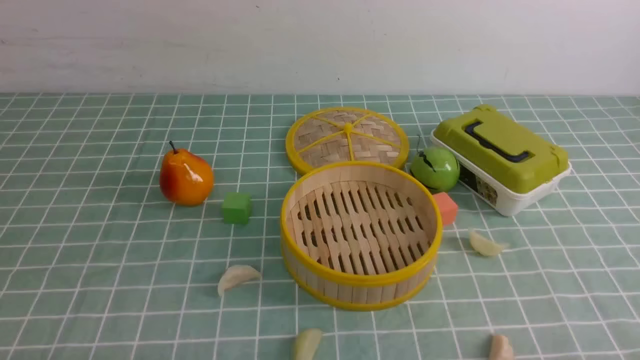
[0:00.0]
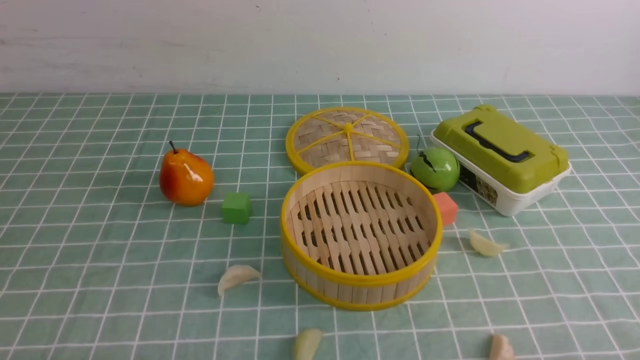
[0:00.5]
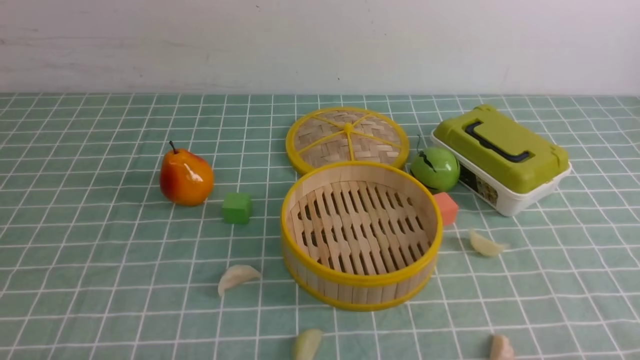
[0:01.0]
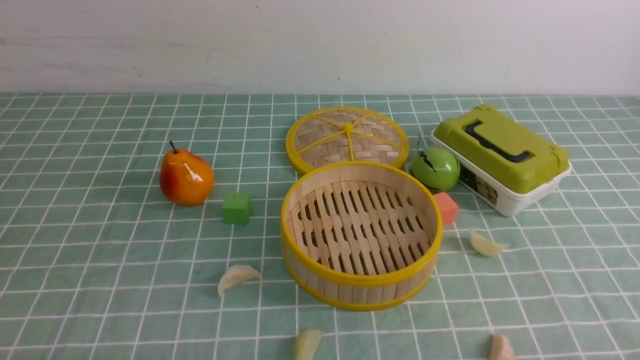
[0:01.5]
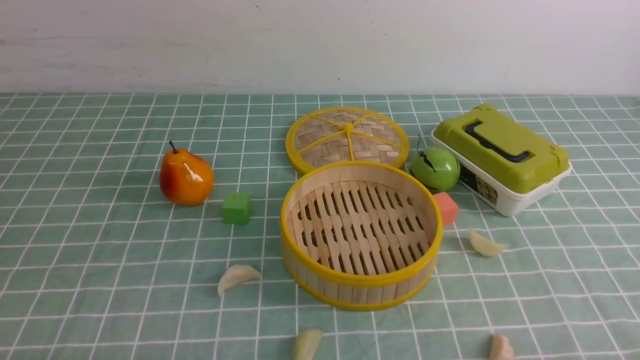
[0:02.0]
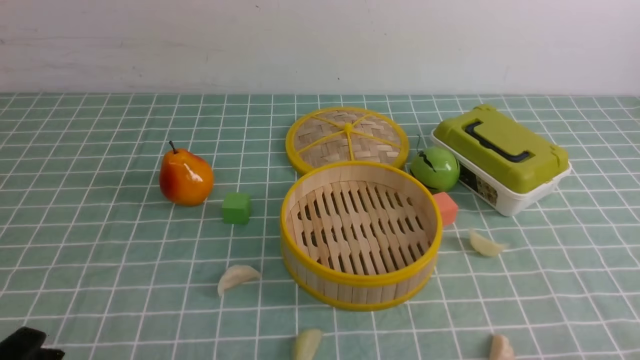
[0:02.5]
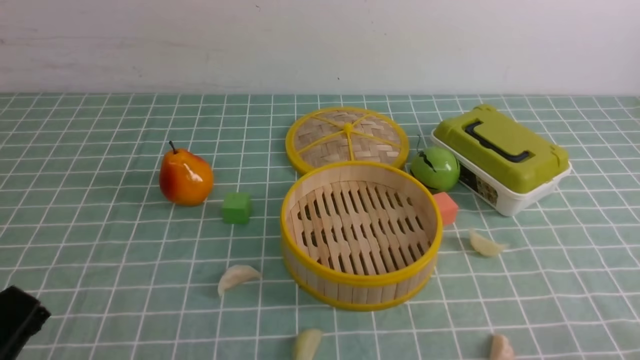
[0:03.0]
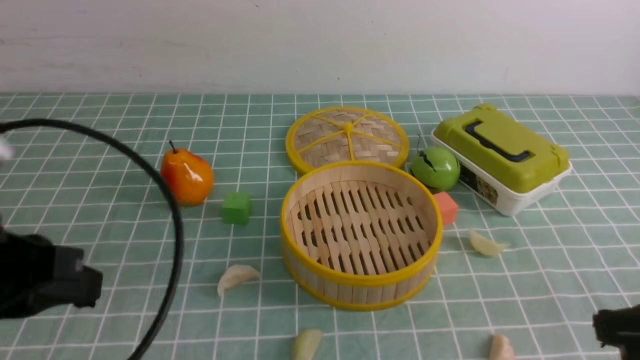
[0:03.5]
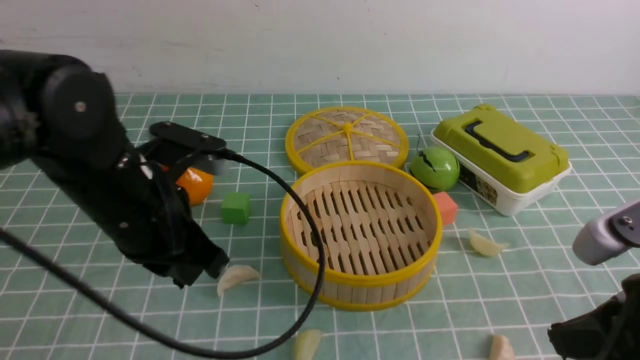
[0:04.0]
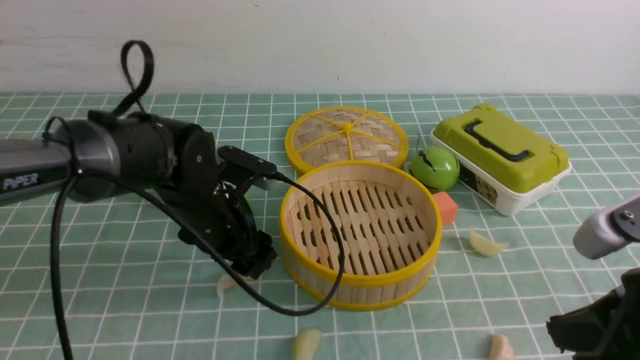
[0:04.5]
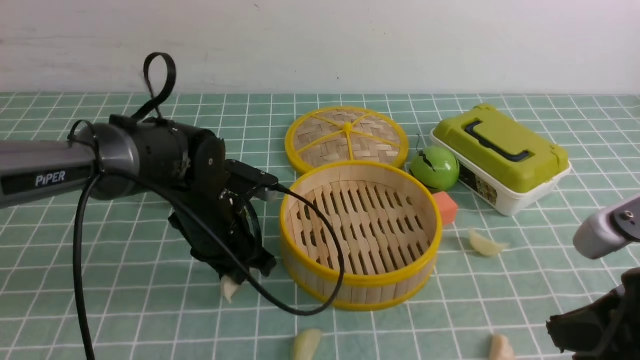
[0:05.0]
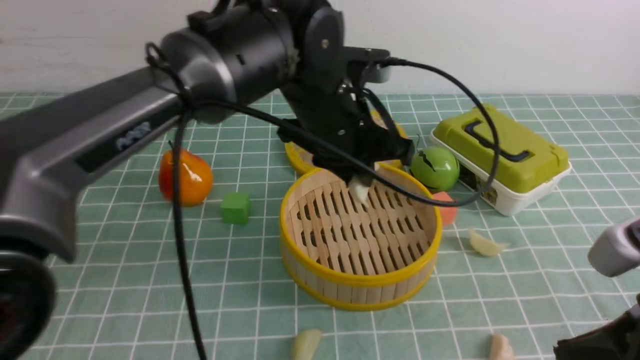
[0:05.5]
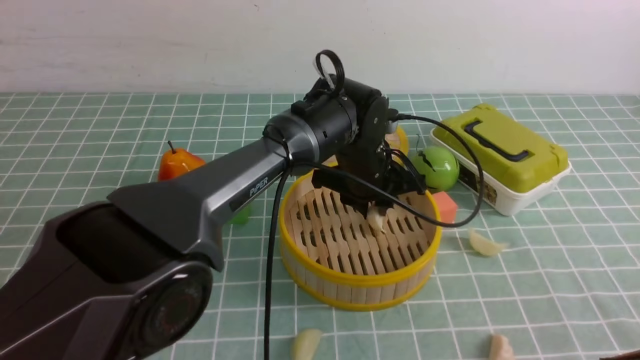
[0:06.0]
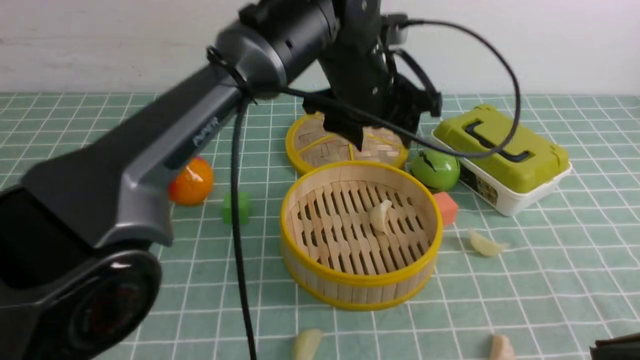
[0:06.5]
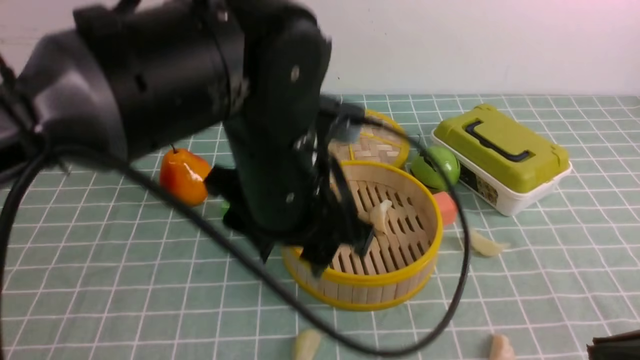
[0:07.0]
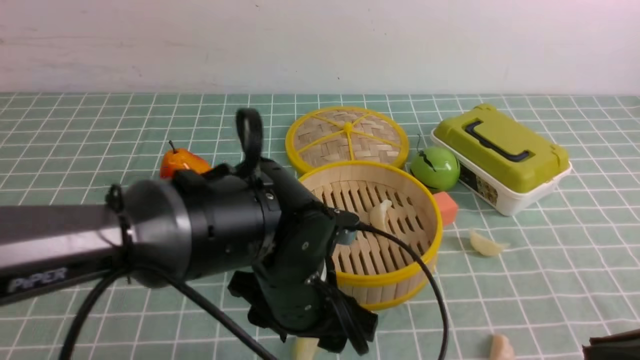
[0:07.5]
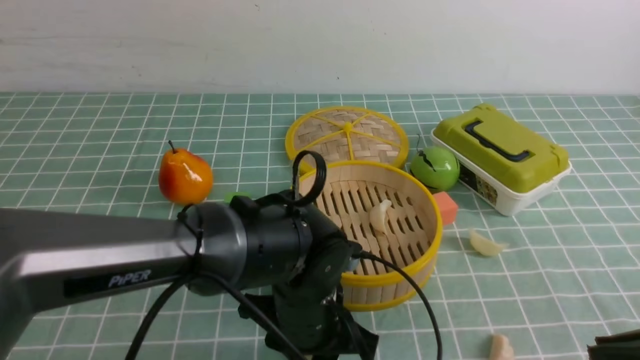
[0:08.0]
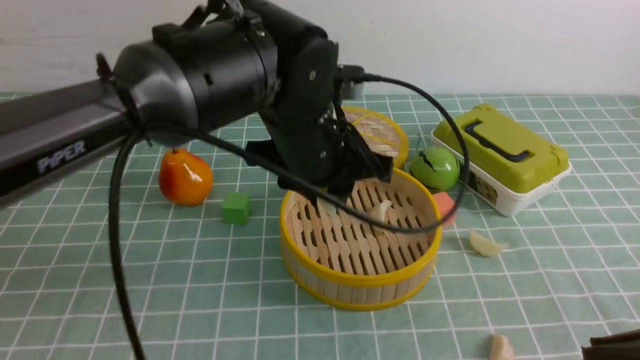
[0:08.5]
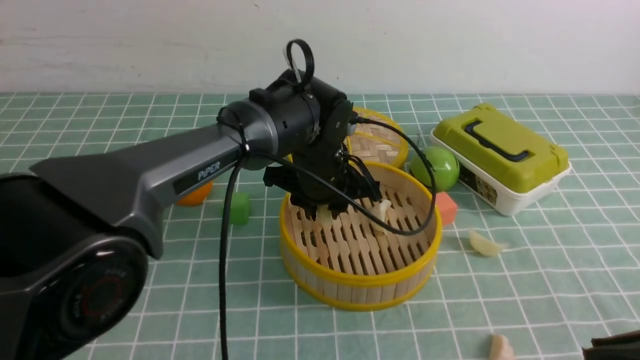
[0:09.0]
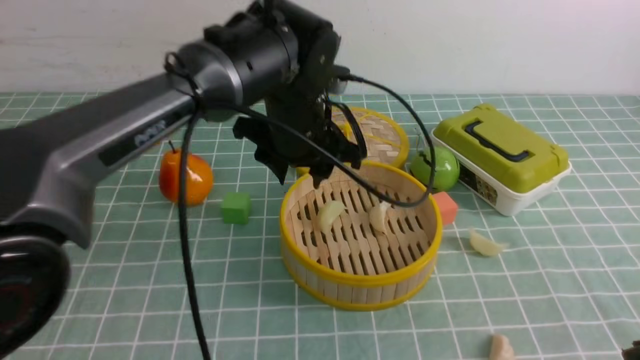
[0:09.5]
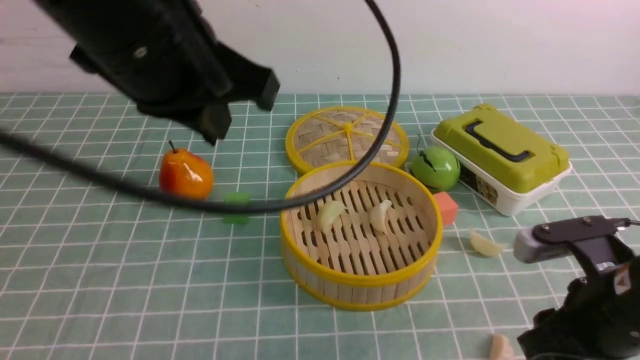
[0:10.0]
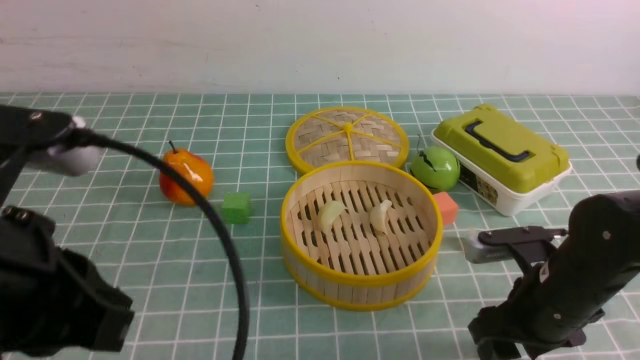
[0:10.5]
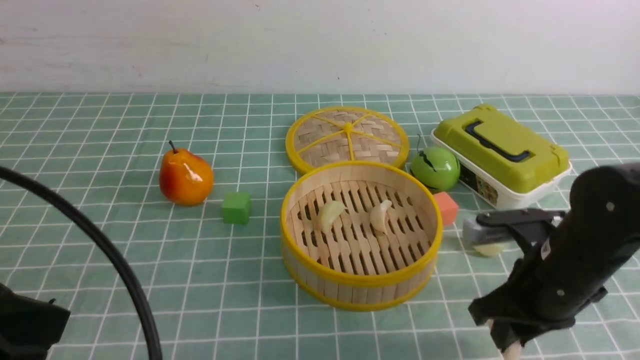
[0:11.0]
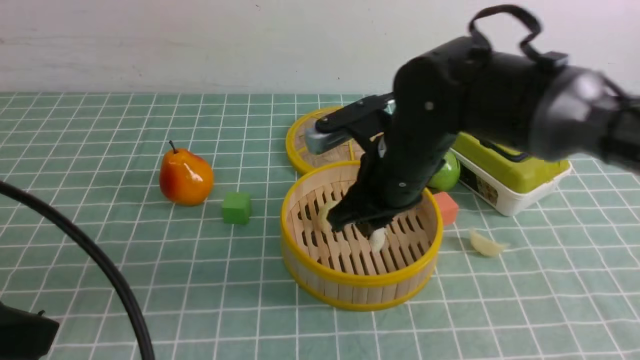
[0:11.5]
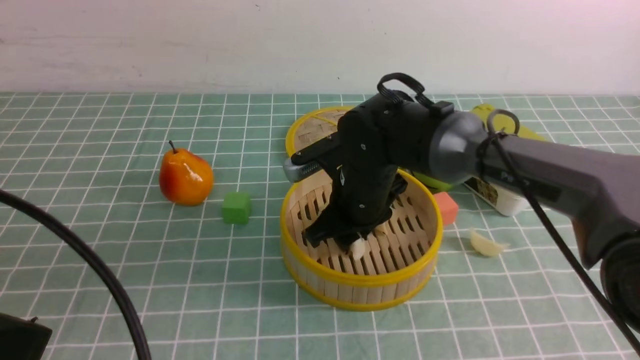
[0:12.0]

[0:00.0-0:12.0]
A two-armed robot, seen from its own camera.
Task of the whole recording: put the dumplings into the steamer on the table with the blue tablecloth.
Step, 0:00.0 to 0:05.0: use the left arm to grab a dumpling.
Step, 0:05.5 to 0:06.5: use the left arm to put the dumpling into the steamer.
Step, 0:07.0 to 0:08.0: use the left arm to grab a dumpling.
Step, 0:08.5 to 0:09.5: use the left arm to put the dumpling into the steamer.
Step, 0:10.0 to 0:11.0: use the right arm to grab a dumpling.
0:02.0 to 0:04.0: The left gripper goes about 25 cm forward, upward and to the right, and closes up; the right gripper moves upward, forward and to the left, some 15 cm, and closes up.
0:04.0 to 0:06.0: The left gripper goes some 25 cm to the right and forward, and opens up, while the right gripper ends up approximately 5 cm from where it was.
0:06.0 to 0:08.0: The left gripper heads backward, covering some 15 cm, and opens, then closes again.
0:08.0 to 0:10.0: The right gripper shifts approximately 10 cm forward and downward, and opens its fingers; the left gripper swings up and down, about 25 cm each way, with 2 reversals, and closes up.
0:10.0 to 0:12.0: The right gripper goes roughly 25 cm to the left and forward; the left gripper travels backward and to the left by roughly 20 cm.

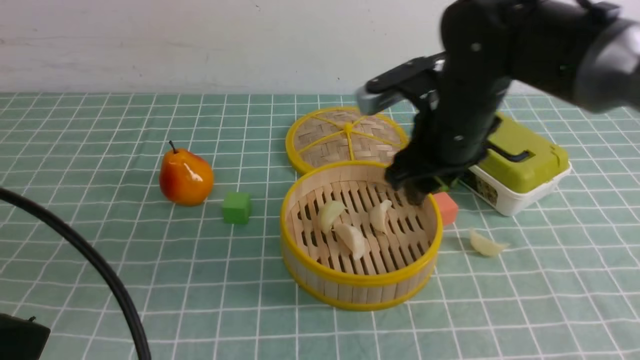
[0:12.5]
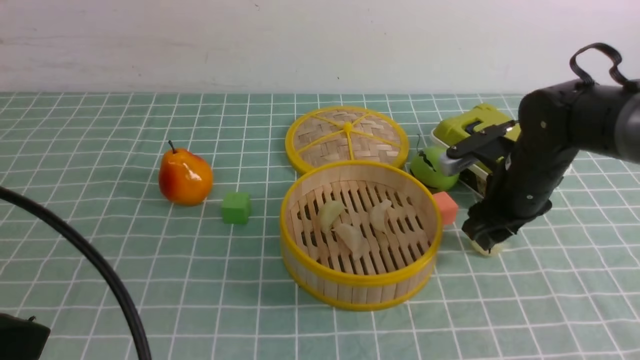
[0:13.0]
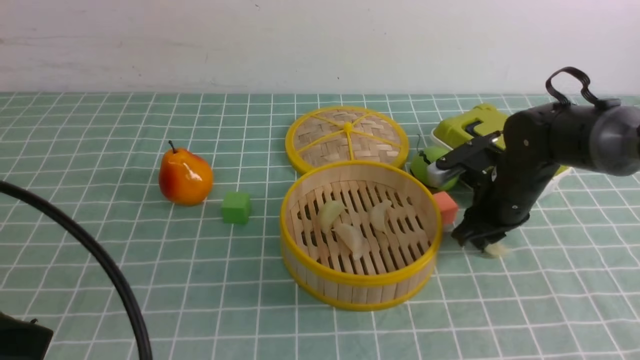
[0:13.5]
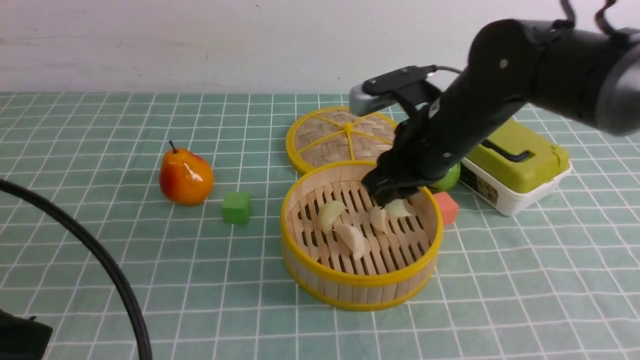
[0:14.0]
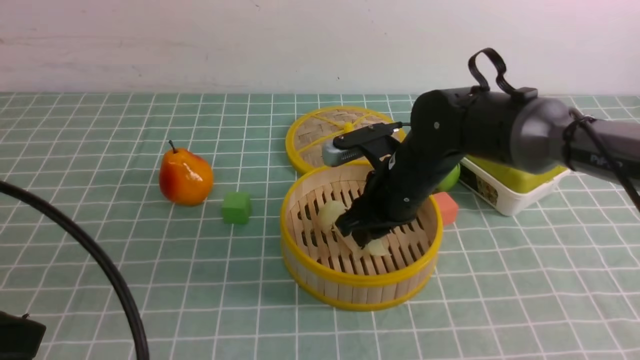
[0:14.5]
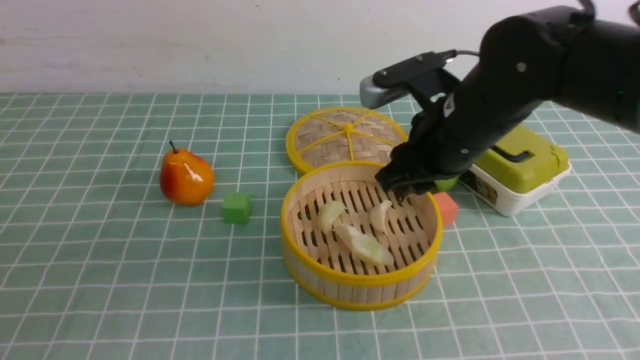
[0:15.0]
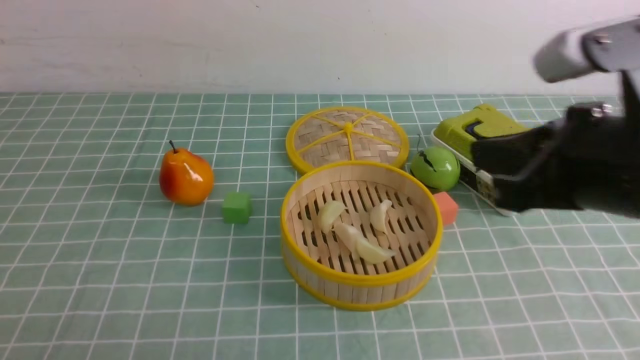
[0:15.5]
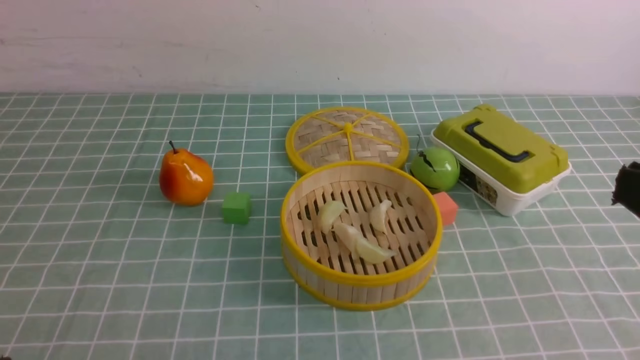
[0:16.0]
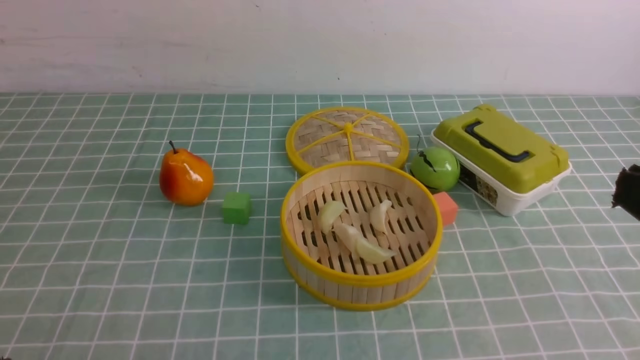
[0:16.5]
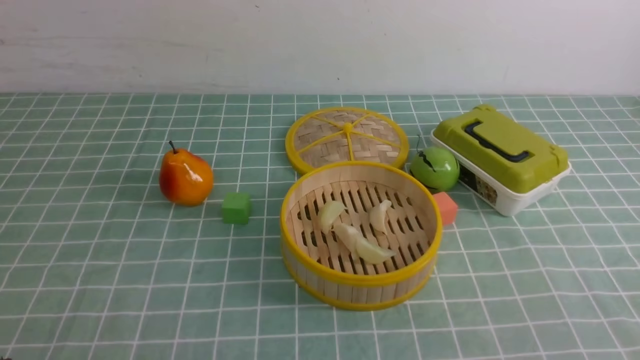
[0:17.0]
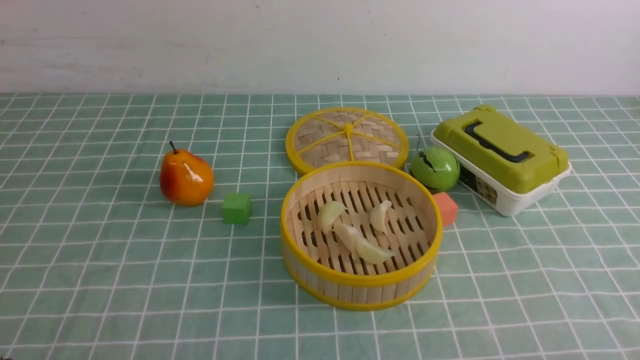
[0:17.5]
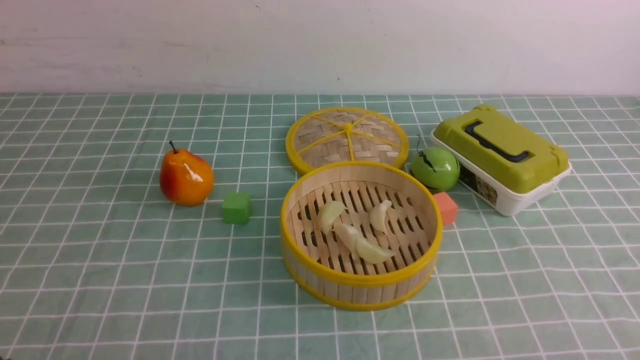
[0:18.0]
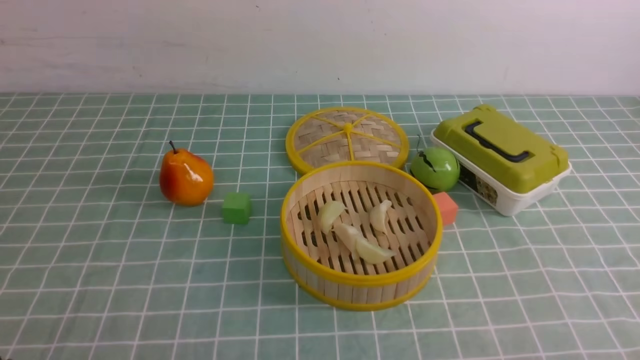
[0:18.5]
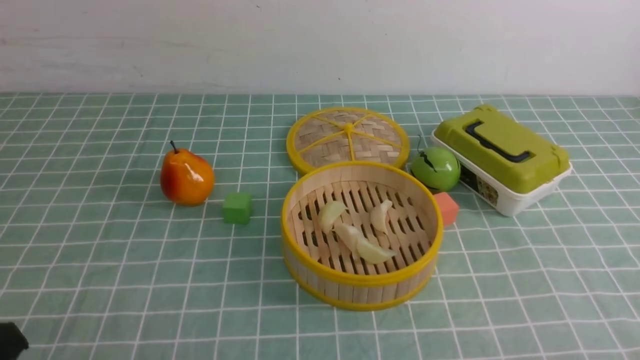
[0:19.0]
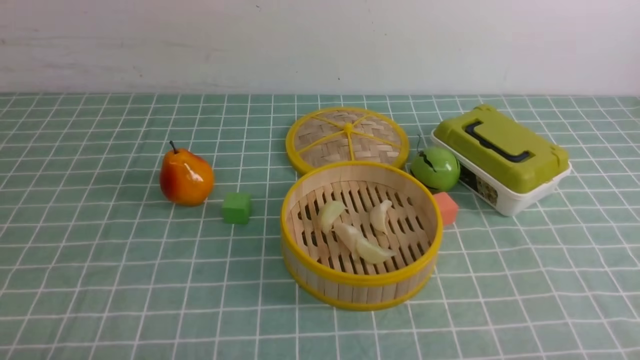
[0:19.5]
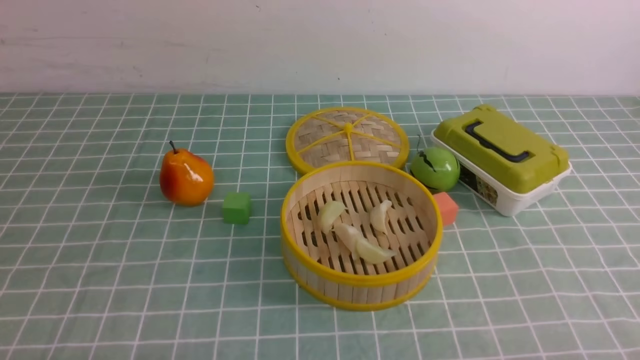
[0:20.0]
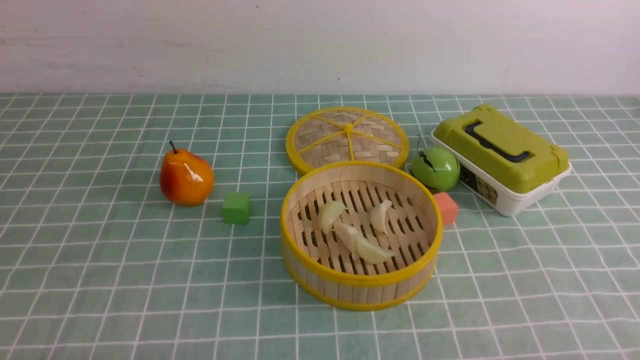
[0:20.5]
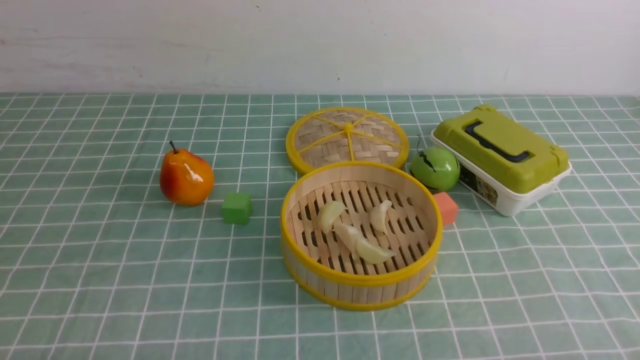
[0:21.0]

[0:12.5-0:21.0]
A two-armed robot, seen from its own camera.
Task of the whole recording: put the dumplings into the steamer on the table with the blue tablecloth.
Step, 0:12.5 to 0:13.5: use the right arm to grab a dumpling.
Step, 0:14.0 to 0:15.0: use the right arm to put the dumpling into the steamer.
0:12.5 to 0:14.5: The right gripper moves about 10 cm to the right and comes back, and closes.
0:14.5 to 0:16.5: The left gripper shifts approximately 10 cm downward and backward, while the right gripper is displaced backward, to the right and upward by roughly 35 cm, and closes its fingers.
